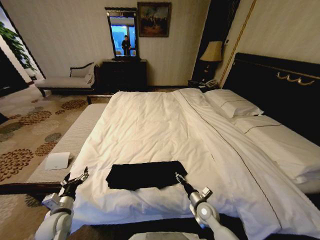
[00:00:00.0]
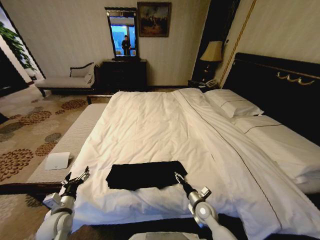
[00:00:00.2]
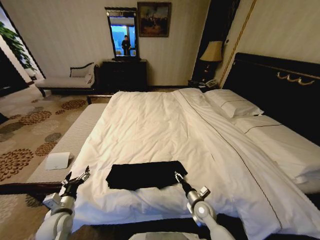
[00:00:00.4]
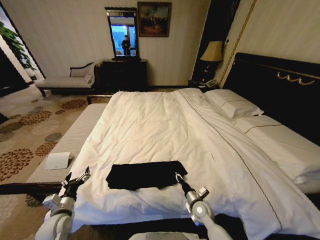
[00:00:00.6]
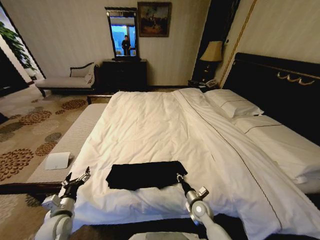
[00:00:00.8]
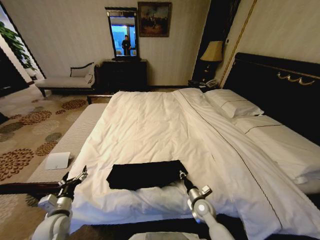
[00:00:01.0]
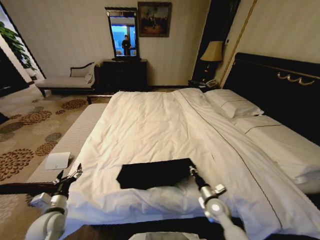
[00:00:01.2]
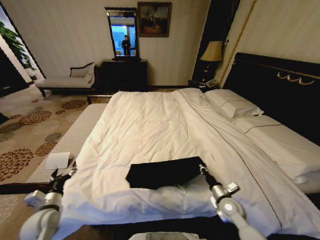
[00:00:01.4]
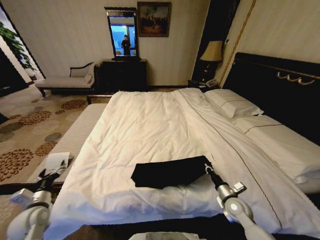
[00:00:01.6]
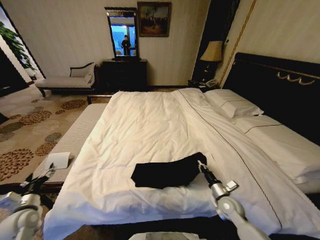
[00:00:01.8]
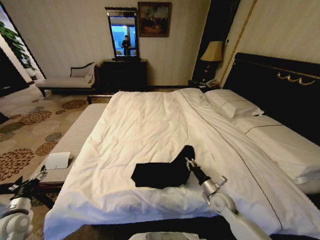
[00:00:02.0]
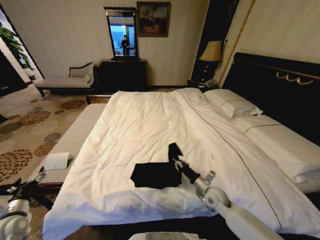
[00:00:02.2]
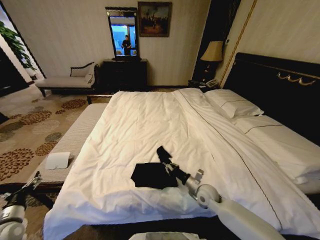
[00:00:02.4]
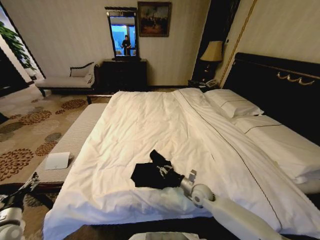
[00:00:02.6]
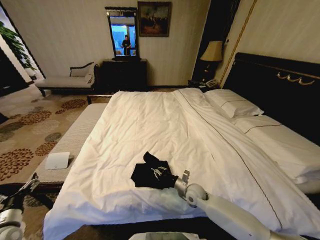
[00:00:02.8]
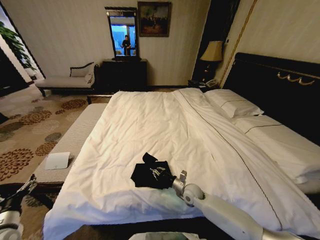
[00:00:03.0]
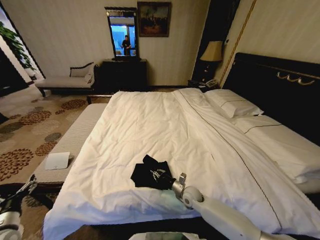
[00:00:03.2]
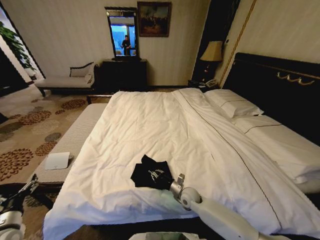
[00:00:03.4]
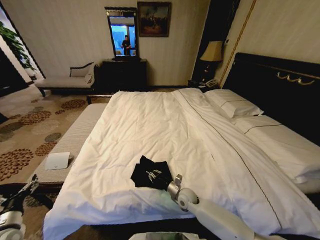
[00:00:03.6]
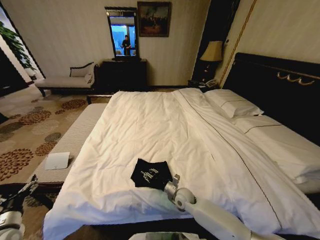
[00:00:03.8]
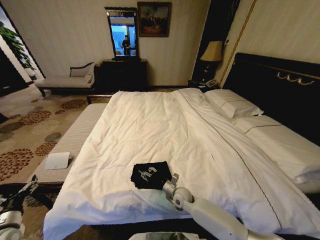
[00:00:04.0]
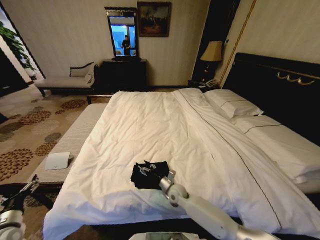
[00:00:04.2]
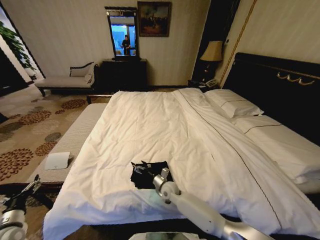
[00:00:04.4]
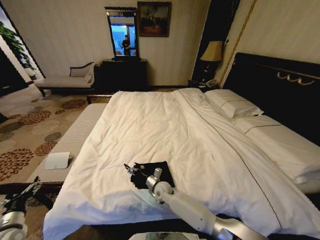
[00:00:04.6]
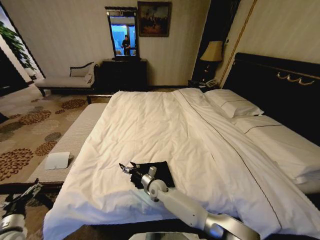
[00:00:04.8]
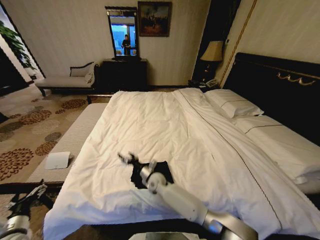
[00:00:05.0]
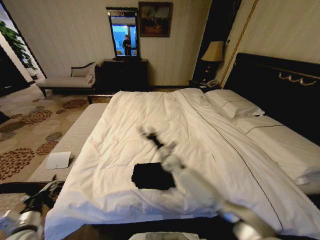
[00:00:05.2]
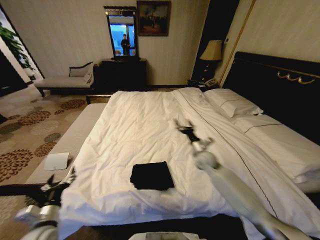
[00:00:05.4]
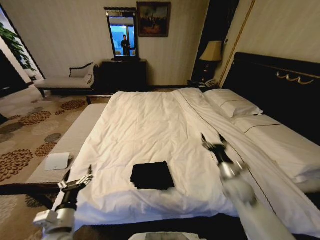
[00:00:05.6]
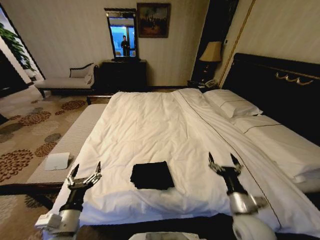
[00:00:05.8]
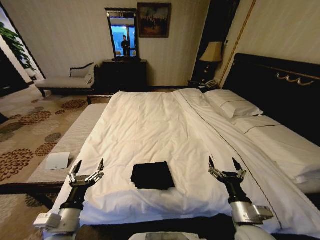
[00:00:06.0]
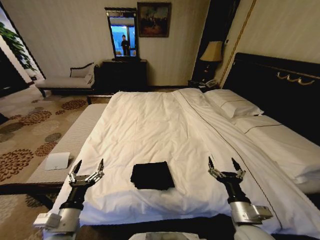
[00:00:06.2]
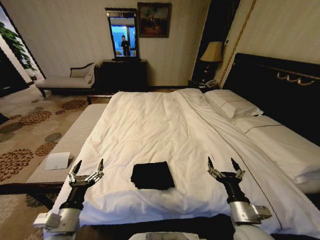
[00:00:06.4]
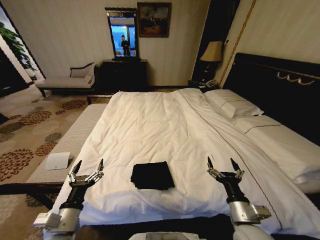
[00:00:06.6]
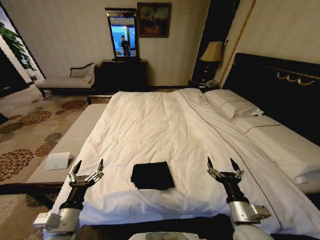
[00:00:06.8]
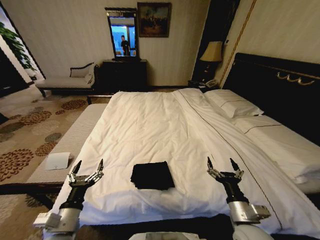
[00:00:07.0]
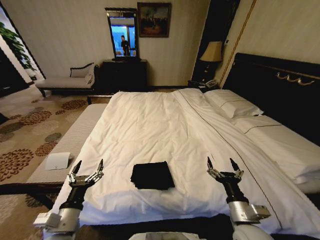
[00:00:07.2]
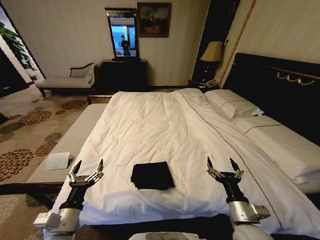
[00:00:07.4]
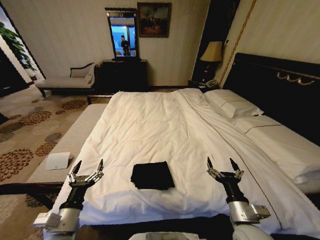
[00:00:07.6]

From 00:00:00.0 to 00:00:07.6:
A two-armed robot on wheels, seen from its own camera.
Task of the whole recording: Fold the clothes on the bed.
From 00:00:00.0 to 00:00:01.6: The left gripper moves to the left, approximately 5 cm, while the right gripper moves to the right and upward, approximately 15 cm, and closes.
From 00:00:01.6 to 00:00:03.0: The left gripper goes about 5 cm backward; the right gripper goes some 20 cm to the left and forward.
From 00:00:03.0 to 00:00:04.6: The right gripper goes approximately 15 cm to the left, and opens up.
From 00:00:04.6 to 00:00:06.0: The right gripper goes about 35 cm to the right, backward and upward. The left gripper is displaced to the right by roughly 20 cm.
From 00:00:06.0 to 00:00:07.6: Both grippers stay about where they are.
